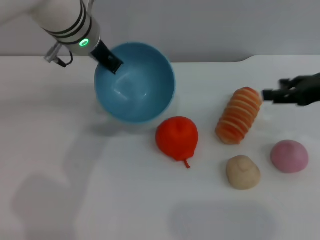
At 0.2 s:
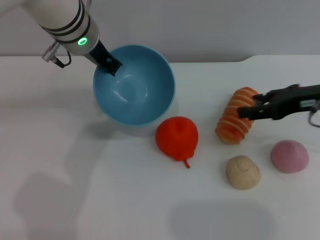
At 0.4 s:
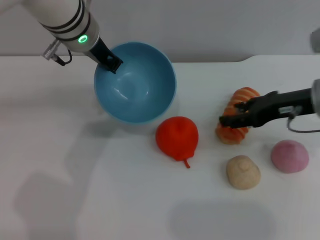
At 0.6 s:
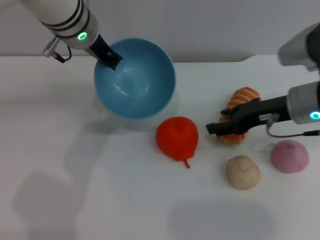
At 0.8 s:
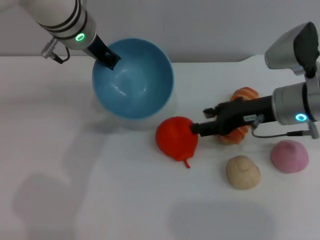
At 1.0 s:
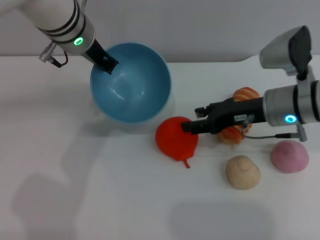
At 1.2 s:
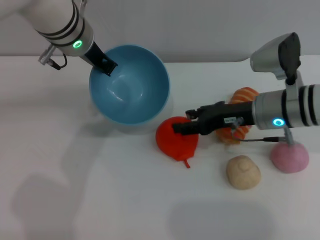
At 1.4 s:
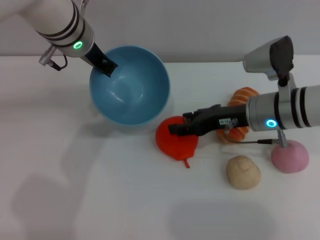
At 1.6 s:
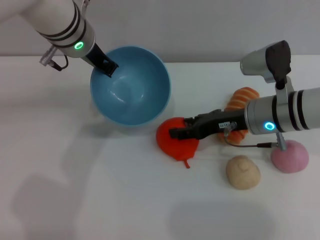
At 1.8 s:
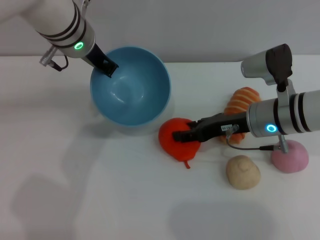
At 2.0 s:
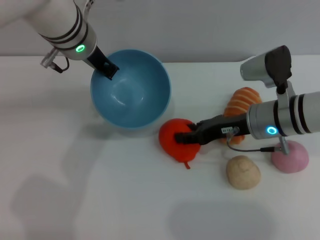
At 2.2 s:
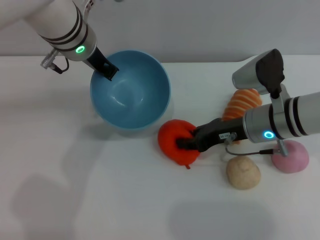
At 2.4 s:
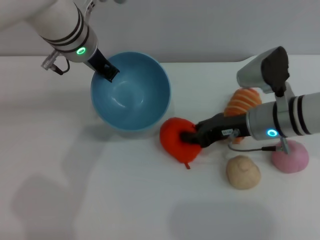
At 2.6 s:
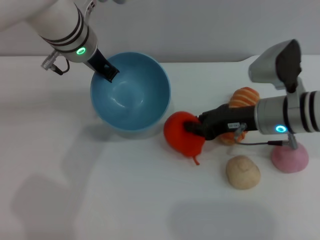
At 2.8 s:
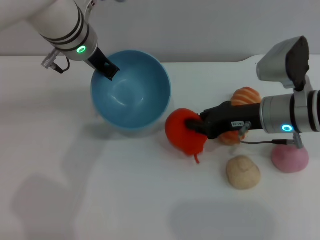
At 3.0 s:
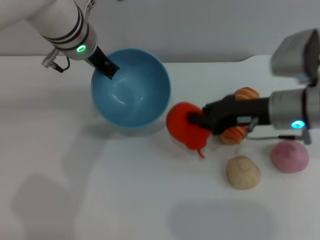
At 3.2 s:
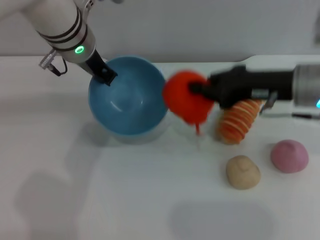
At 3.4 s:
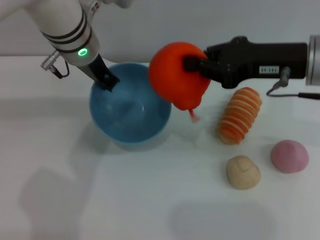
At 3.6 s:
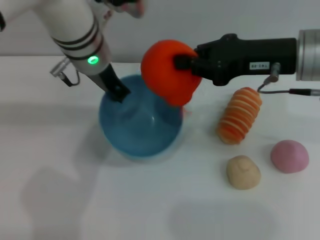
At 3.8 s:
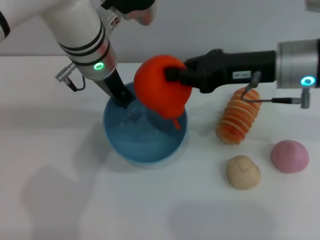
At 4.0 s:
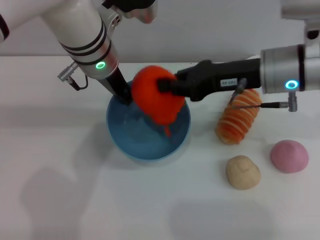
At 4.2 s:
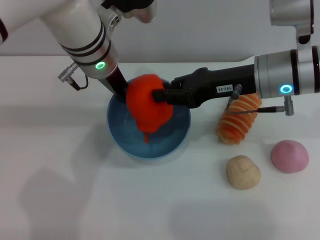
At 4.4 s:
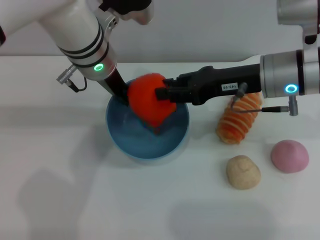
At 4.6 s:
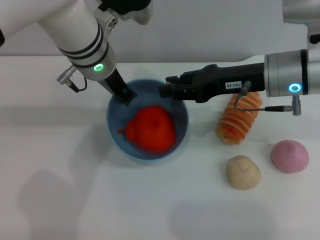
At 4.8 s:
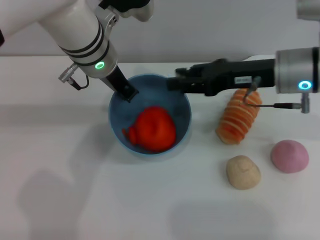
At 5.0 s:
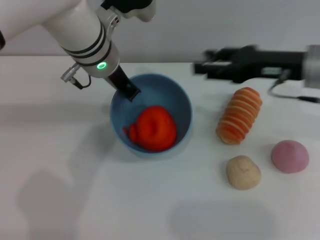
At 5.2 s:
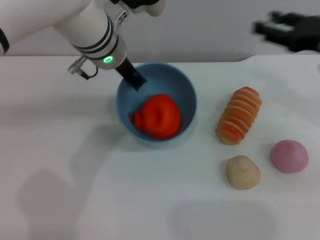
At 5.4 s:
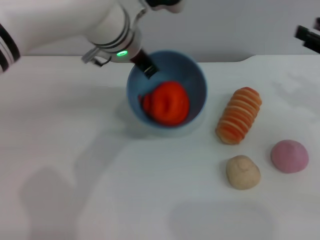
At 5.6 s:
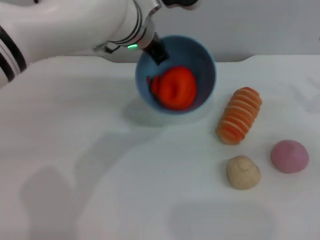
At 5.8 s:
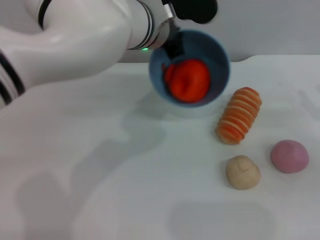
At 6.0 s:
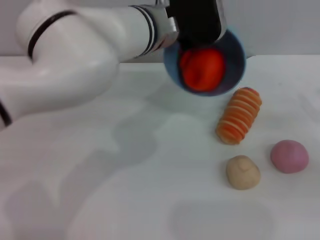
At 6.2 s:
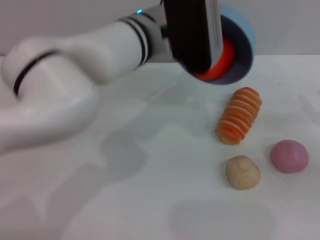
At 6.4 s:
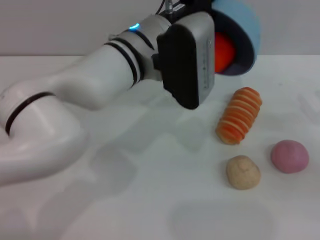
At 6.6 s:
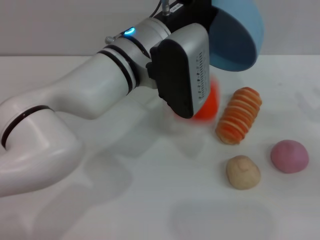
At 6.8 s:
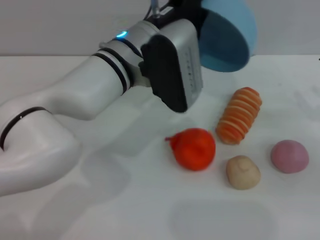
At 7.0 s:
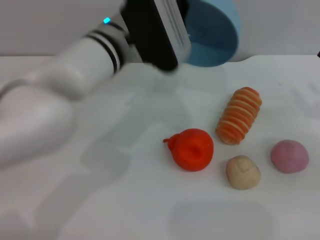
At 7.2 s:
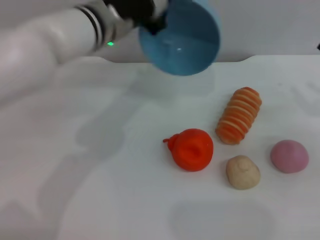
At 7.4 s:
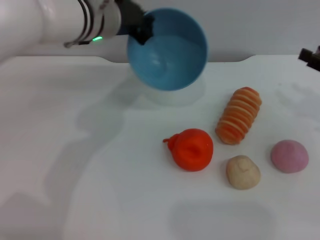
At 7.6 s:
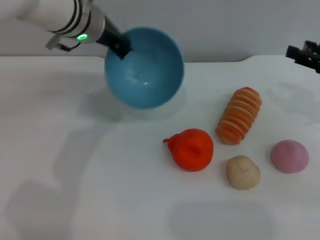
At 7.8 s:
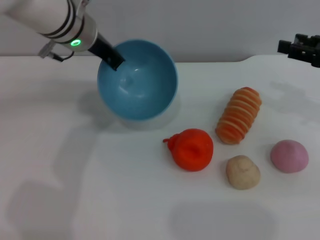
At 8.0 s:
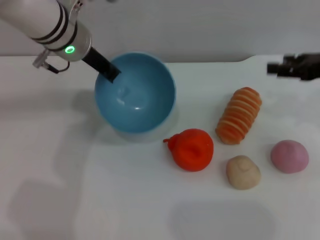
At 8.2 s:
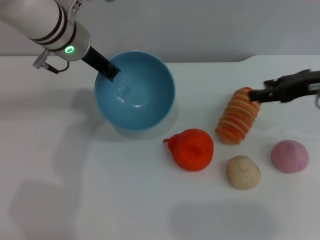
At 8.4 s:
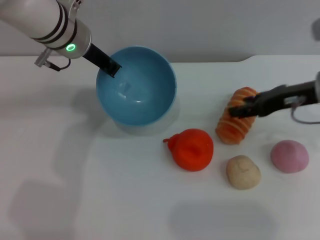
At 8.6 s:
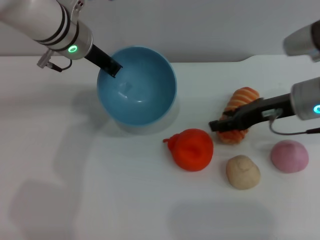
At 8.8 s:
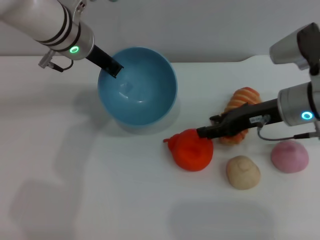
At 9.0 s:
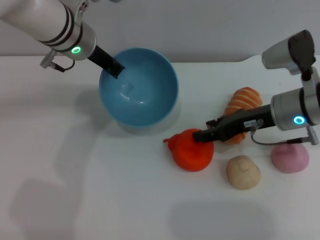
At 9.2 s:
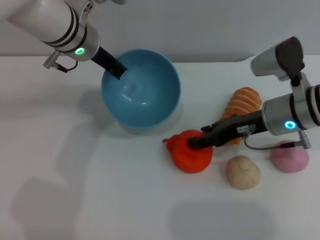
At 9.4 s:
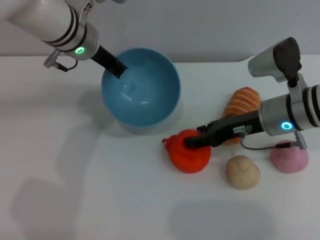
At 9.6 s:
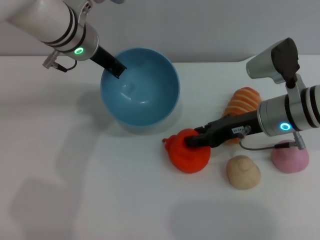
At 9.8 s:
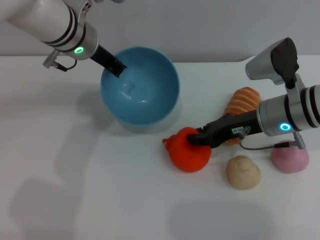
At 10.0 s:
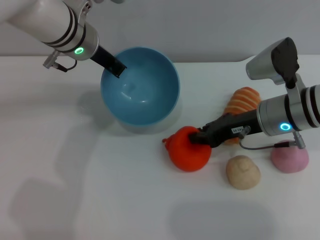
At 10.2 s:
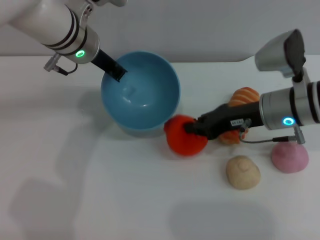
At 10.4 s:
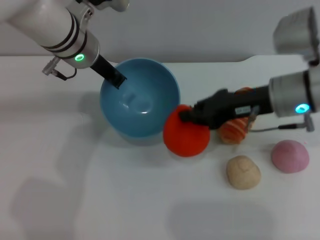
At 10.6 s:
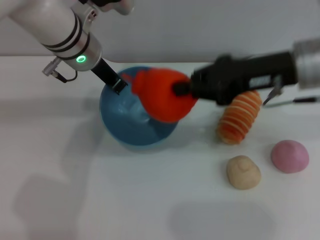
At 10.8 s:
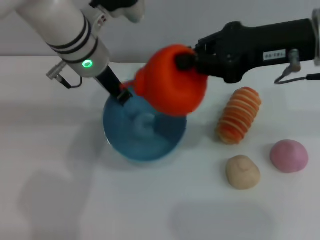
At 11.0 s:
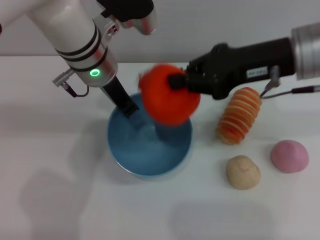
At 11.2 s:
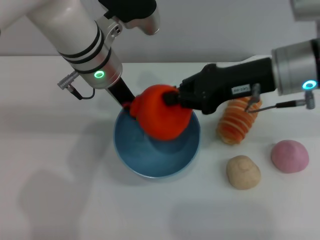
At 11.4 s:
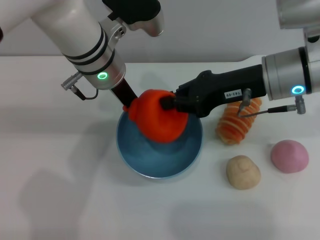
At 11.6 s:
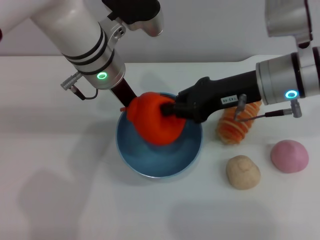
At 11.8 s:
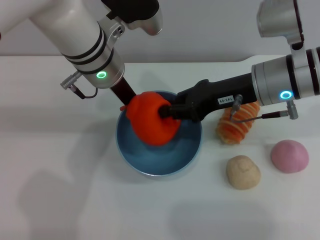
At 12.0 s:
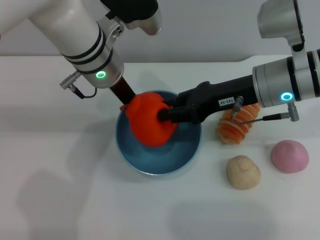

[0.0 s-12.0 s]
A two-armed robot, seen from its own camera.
Task of the whole recording: put the orange into the blue bowl and pour it out repeatedly.
Step, 0.0 to 3.0 s: Pick up the orange with the right gripper.
Step, 3.2 to 5.4 s: Place the orange into the bowl.
Step, 5.6 to 6.6 s: Pour the orange out of the bowl.
Step, 6.8 to 10.2 s: Pick up the orange with the right gripper.
0.0 to 1.6 s: The right gripper shifts some 15 cm to the left and downward.
1.6 to 3.0 s: The right gripper closes.
4.4 to 6.0 s: The left gripper travels to the right by about 5 cm; the right gripper shifts approximately 20 cm to the right and downward, and opens its fingers.
6.0 to 7.6 s: The right gripper shifts about 5 cm upward. The left gripper shifts roughly 10 cm to the left.
7.6 to 9.0 s: The right gripper heads to the left, covering roughly 15 cm.
9.0 to 10.4 s: The right gripper closes its fingers.
10.4 to 12.0 s: The right gripper goes upward and returns, roughly 10 cm each way.

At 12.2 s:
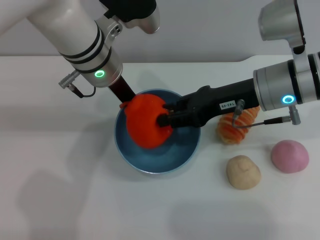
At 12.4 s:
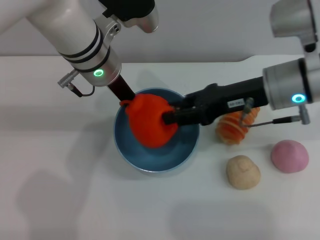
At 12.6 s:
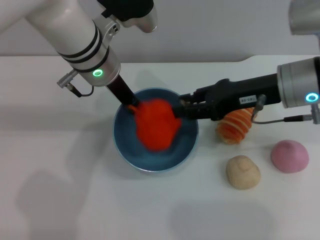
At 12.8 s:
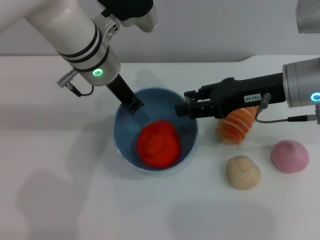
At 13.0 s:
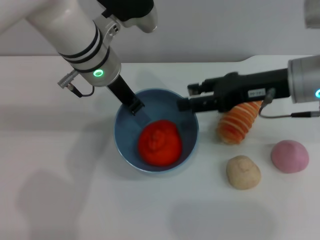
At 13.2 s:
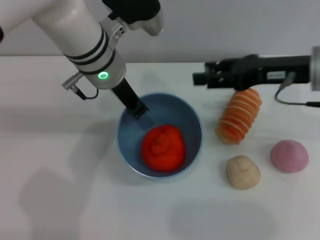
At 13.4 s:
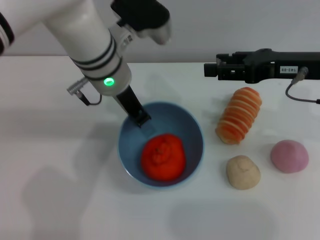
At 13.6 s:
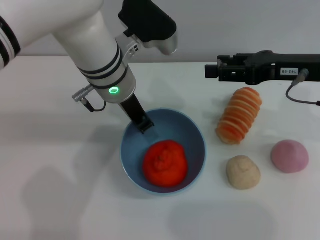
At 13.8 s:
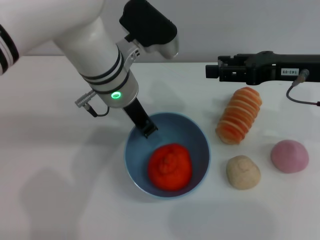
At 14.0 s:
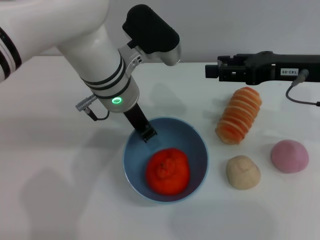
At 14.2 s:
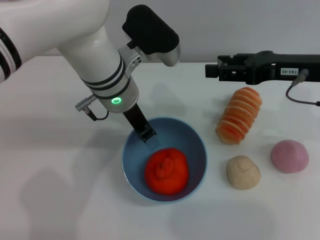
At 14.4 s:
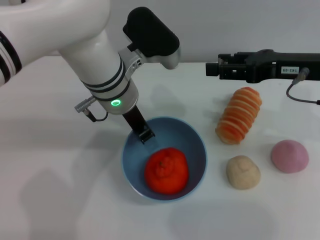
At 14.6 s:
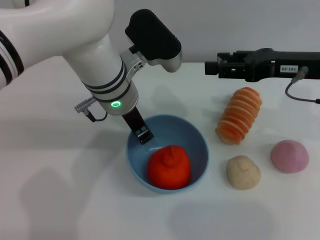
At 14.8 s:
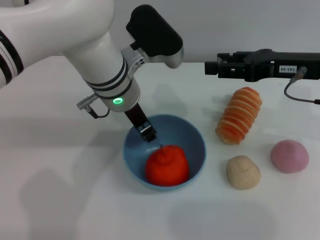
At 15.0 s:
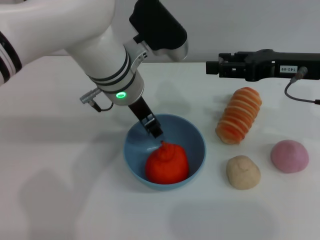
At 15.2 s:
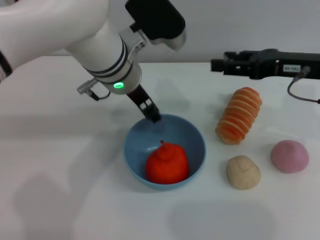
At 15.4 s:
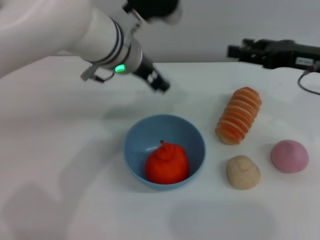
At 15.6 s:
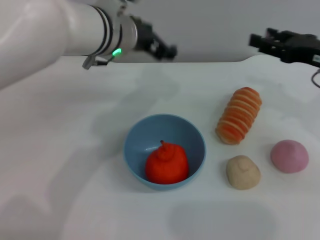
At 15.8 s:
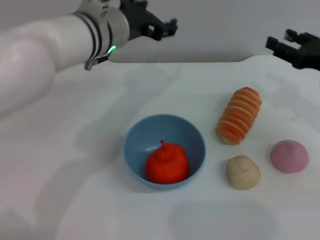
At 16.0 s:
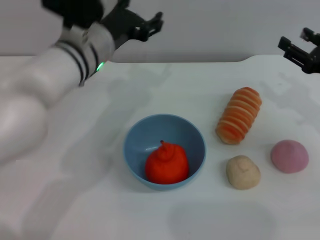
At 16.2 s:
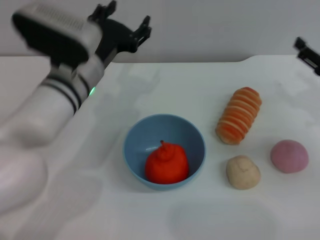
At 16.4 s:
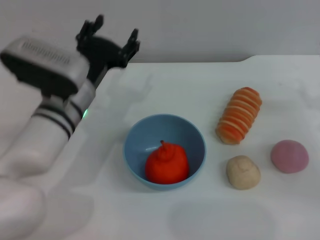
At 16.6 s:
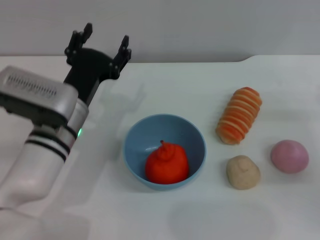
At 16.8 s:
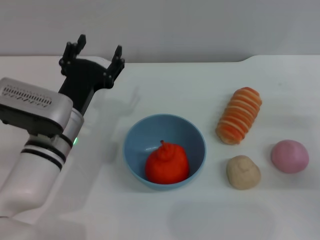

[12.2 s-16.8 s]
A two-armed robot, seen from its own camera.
Task of the whole recording: put the orange into the blue bowl and pour it out repeatedly.
Step, 13.0 to 15.0 s: Place the bowl on the table.
12.2 to 13.8 s: The right gripper heads to the right, covering about 10 cm, and opens up.
13.8 to 15.2 s: The left gripper opens.
15.2 to 16.8 s: The right gripper goes approximately 20 cm downward, to the right and backward, while the left gripper travels downward, to the left and backward by roughly 15 cm.

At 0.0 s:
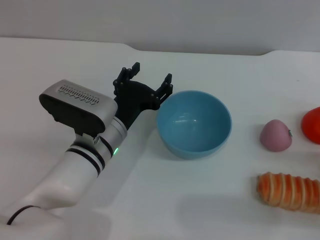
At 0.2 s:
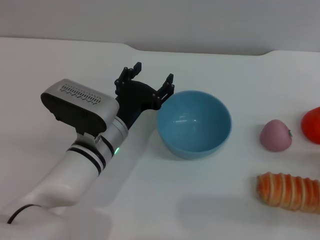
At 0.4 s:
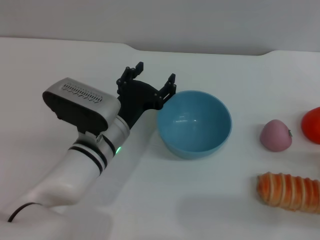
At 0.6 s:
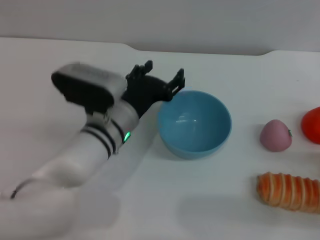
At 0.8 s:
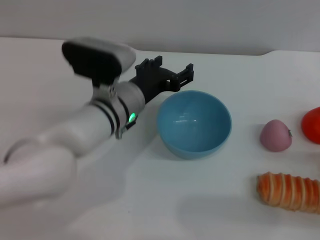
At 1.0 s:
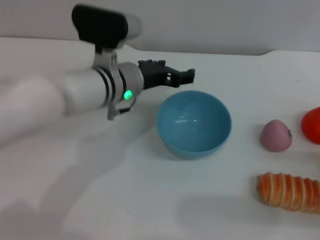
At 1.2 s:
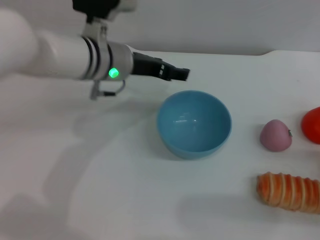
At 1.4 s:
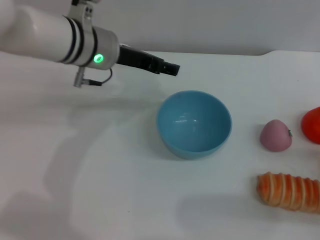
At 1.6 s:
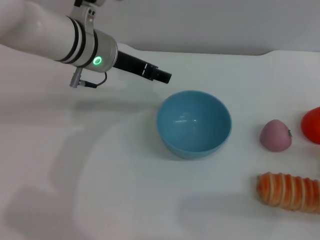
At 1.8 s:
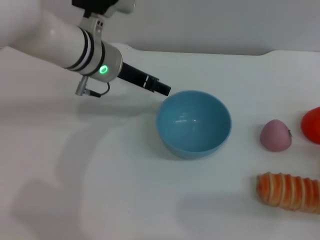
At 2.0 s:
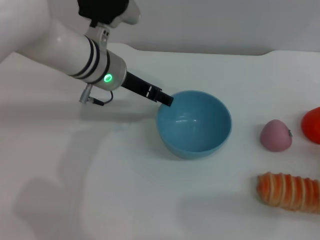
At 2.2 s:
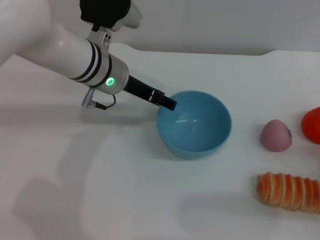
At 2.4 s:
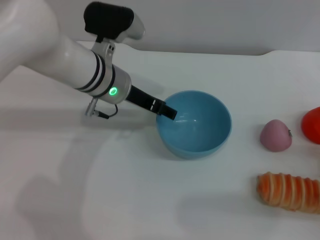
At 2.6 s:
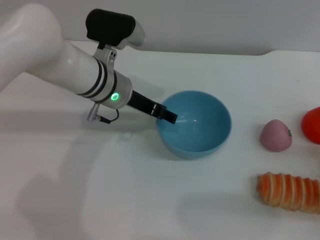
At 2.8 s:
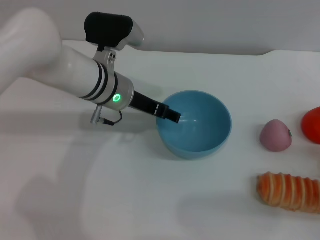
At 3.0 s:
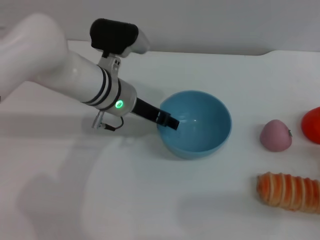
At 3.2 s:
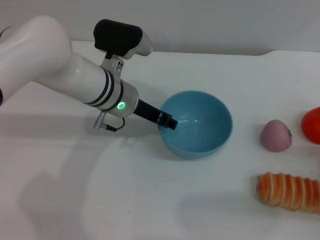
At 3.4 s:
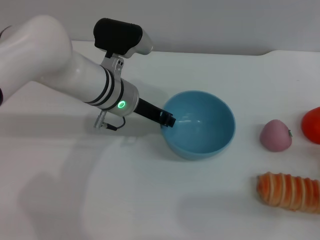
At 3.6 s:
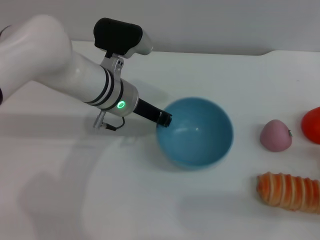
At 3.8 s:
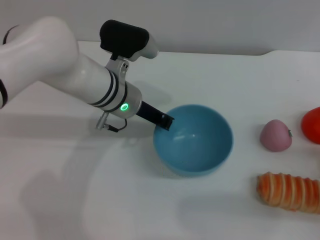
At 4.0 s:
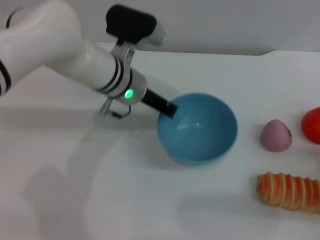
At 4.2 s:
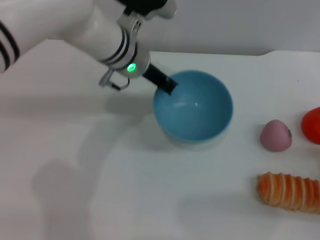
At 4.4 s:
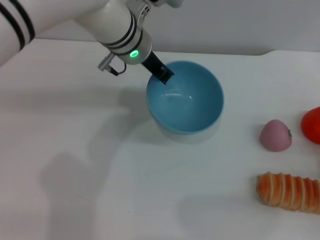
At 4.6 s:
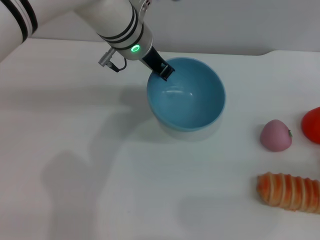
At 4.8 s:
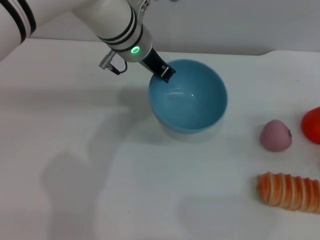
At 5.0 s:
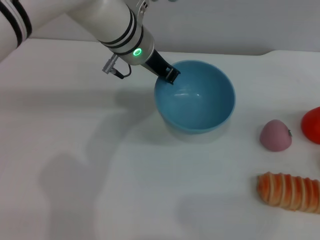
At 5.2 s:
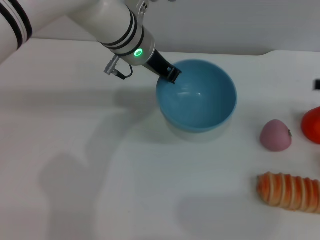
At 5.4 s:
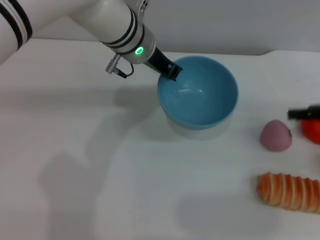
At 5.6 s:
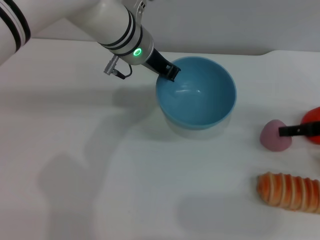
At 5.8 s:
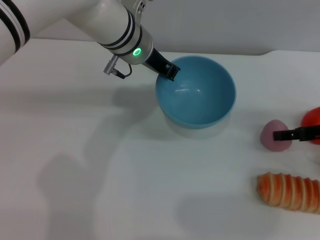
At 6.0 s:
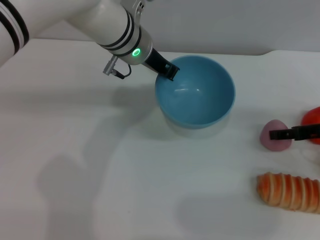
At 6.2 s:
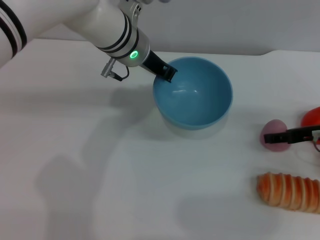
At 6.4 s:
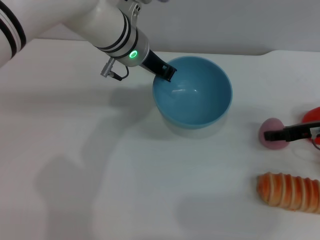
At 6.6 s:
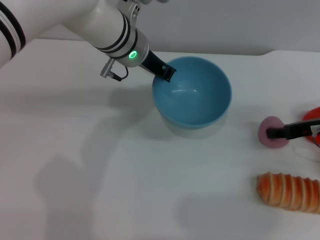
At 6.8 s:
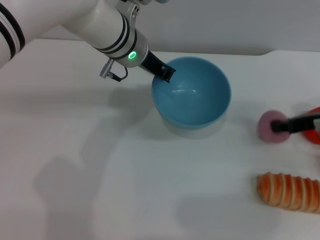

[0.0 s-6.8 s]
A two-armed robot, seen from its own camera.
Task of the whole recording: put the peach into the blue bowl and pour it out repeatedly.
Step, 0.0 to 4.0 s: Pick up the bowl with the left gripper.
Step, 4.4 to 6.8 s: Pick up the peach with the right gripper.
0.0 to 1.4 s: The left gripper shifts some 15 cm upward and forward.
1.4 to 2.8 s: The left gripper heads downward, covering some 5 cm.
2.8 to 4.0 s: The left gripper closes its fingers.
4.0 to 5.4 s: The right gripper travels forward and upward by about 20 cm. Meanwhile the left gripper is displaced upward by some 5 cm.
5.4 to 6.8 s: The right gripper closes its fingers.
